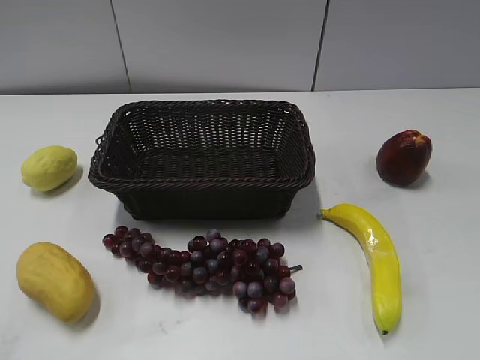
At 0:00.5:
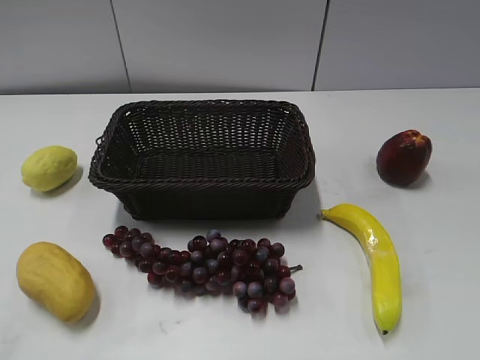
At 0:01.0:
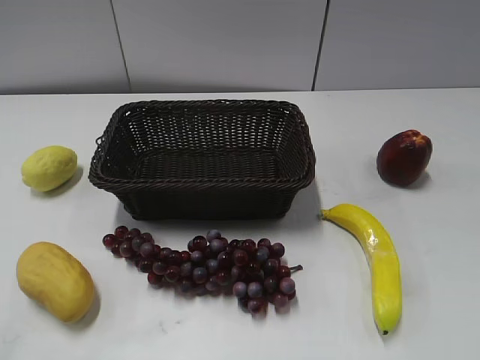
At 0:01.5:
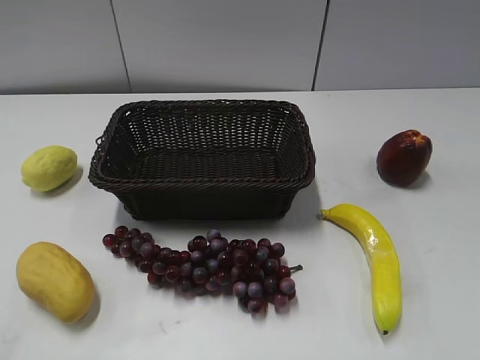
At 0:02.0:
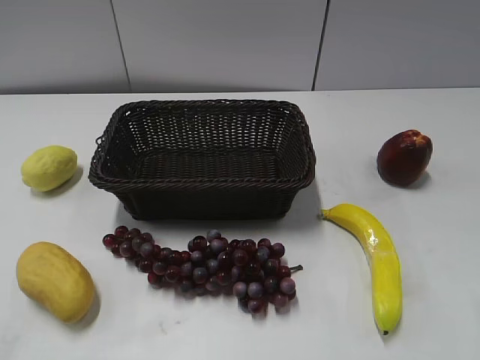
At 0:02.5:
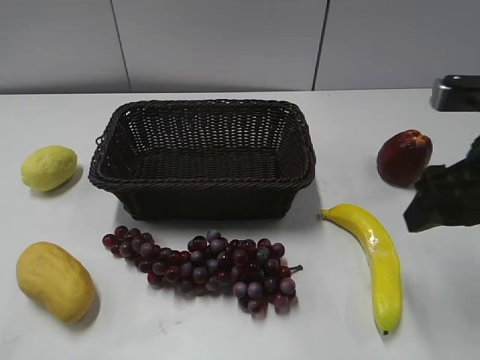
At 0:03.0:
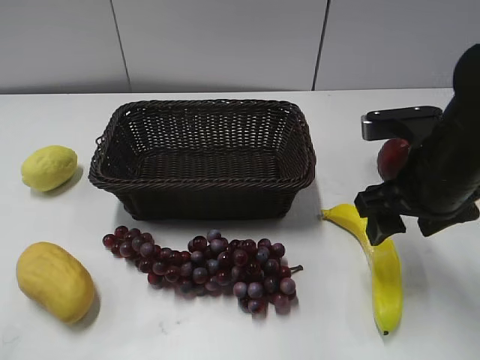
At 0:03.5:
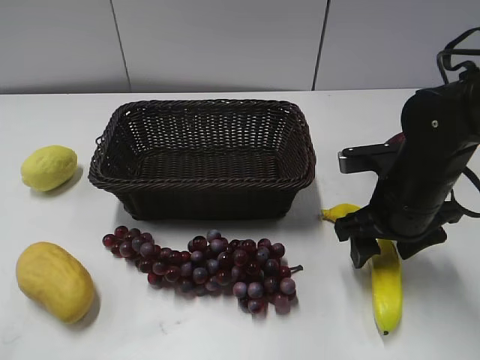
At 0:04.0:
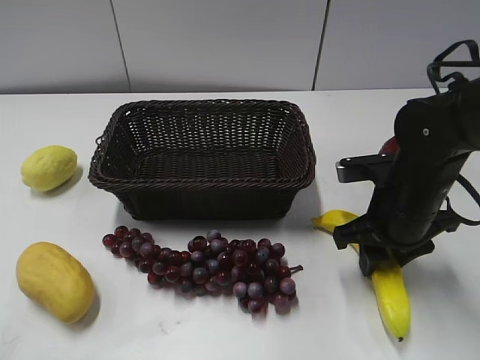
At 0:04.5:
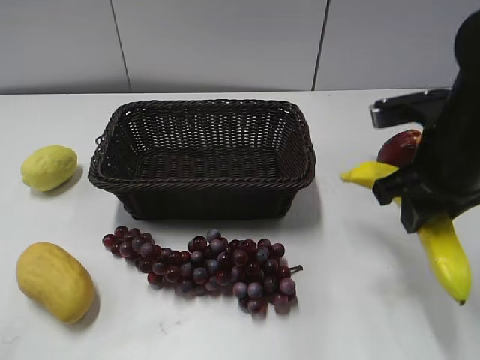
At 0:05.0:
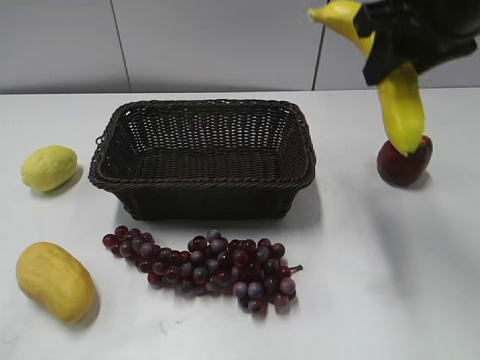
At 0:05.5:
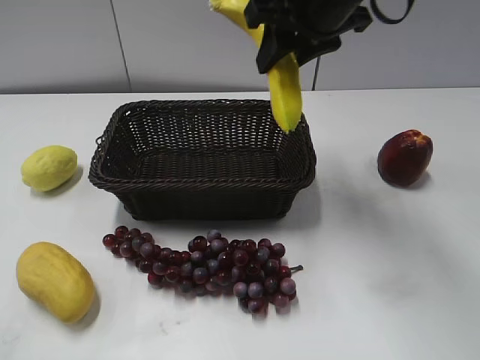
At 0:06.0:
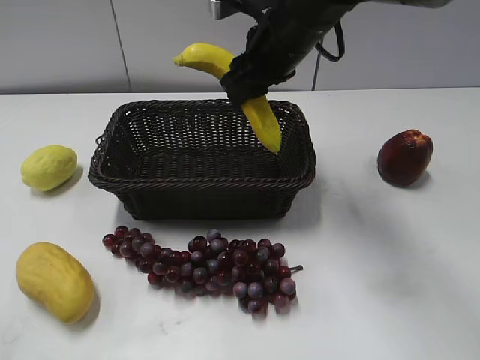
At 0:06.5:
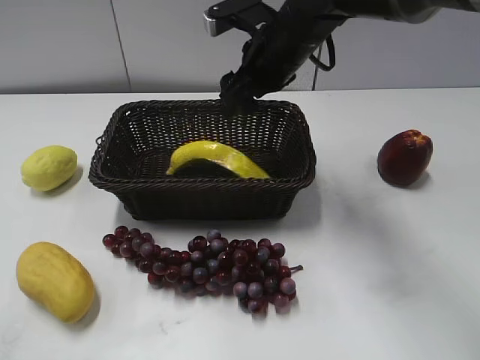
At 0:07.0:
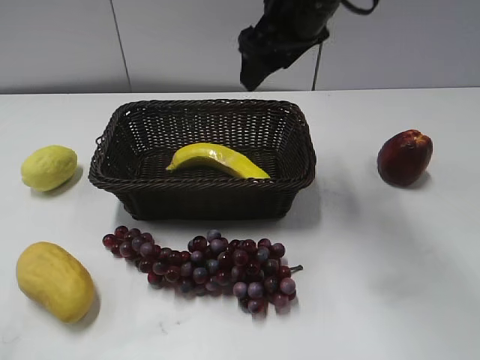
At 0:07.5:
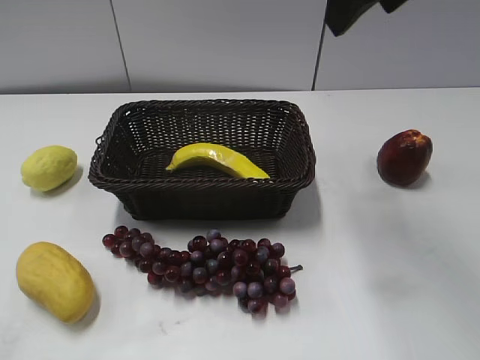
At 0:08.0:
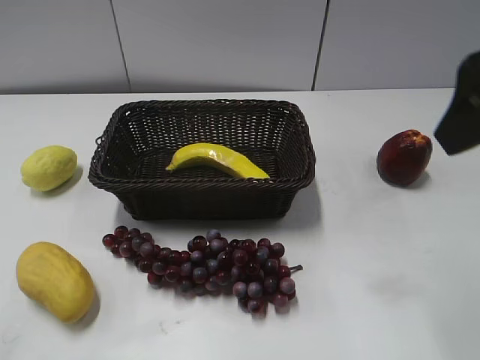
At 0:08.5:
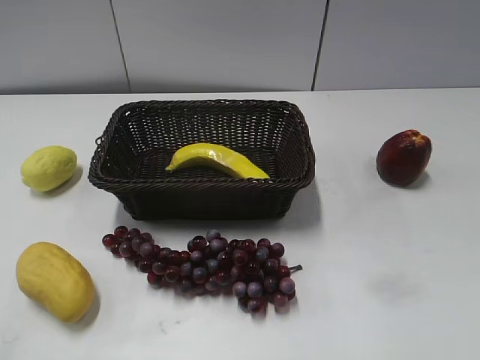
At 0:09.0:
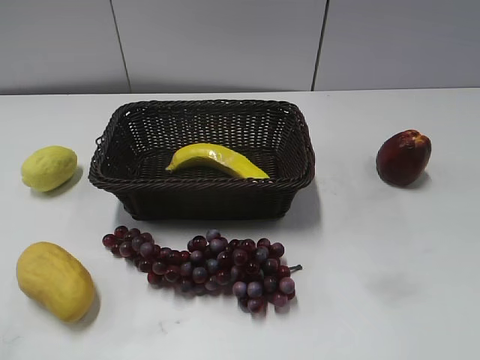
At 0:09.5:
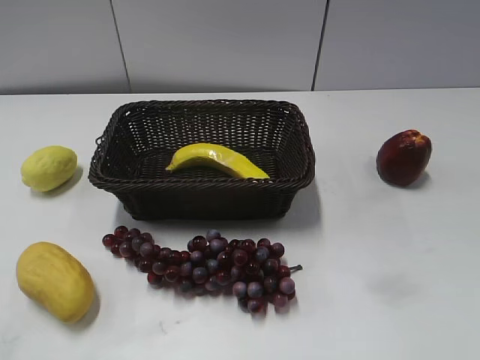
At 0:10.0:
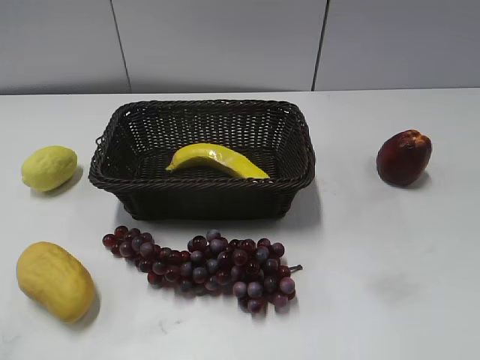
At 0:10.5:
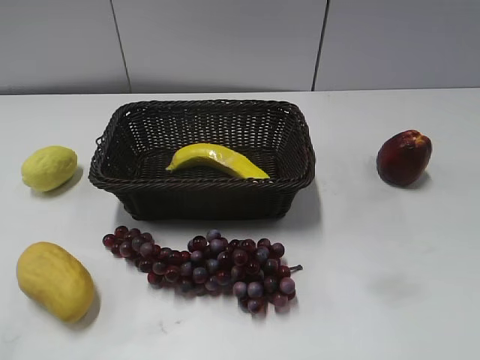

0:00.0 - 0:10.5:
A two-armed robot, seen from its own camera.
Step, 0:02.5 - 0:03.5: Grasp the banana with right gripper.
Step, 0:04.0 - 0:06.5: Place the banana in the basket with right gripper.
0:02.0 - 0:04.0: The right gripper heads downward, forward and to the left, covering some 20 cm, and closes.
0:04.0 - 0:06.5: The right gripper goes some 20 cm to the left, forward and upward, and opens.
0:06.5 - 0:08.5: The right gripper is displaced backward and to the right by approximately 40 cm.

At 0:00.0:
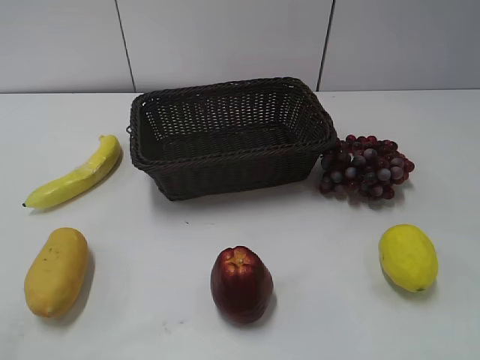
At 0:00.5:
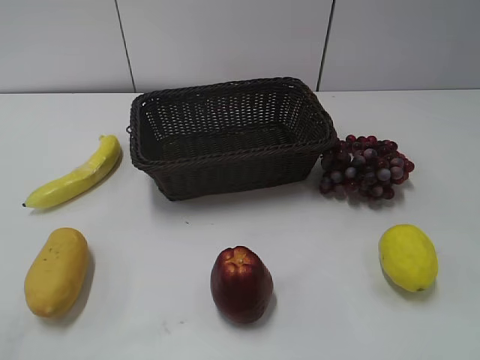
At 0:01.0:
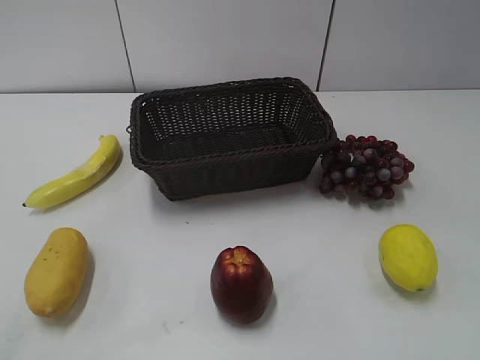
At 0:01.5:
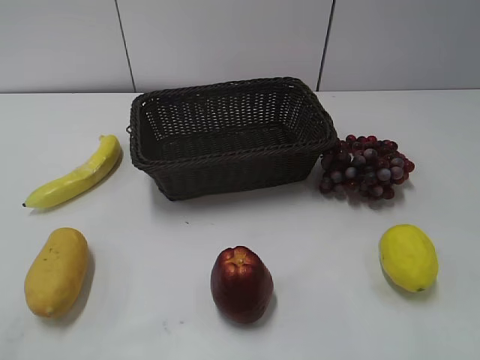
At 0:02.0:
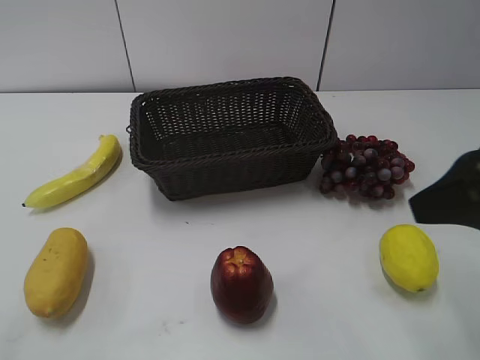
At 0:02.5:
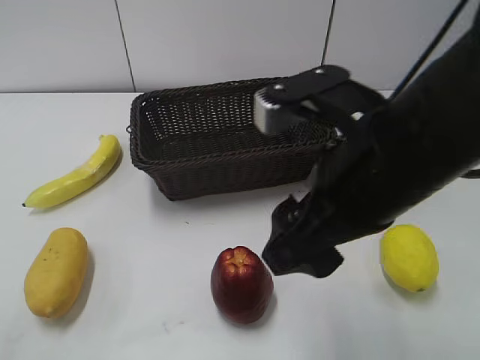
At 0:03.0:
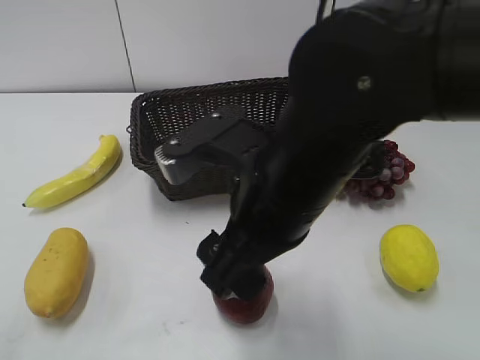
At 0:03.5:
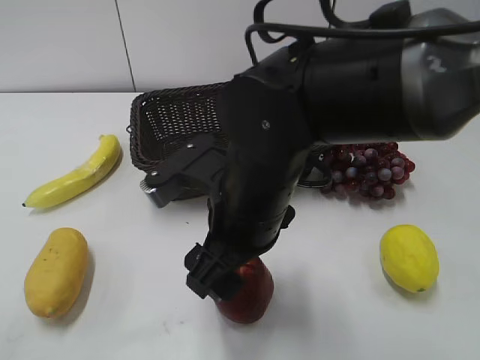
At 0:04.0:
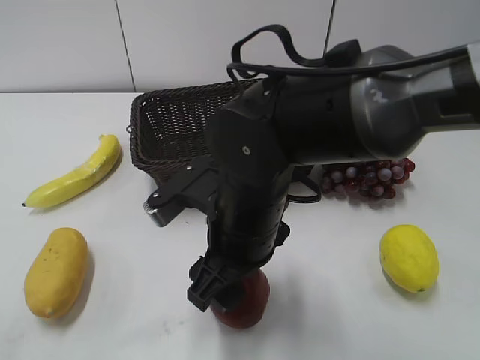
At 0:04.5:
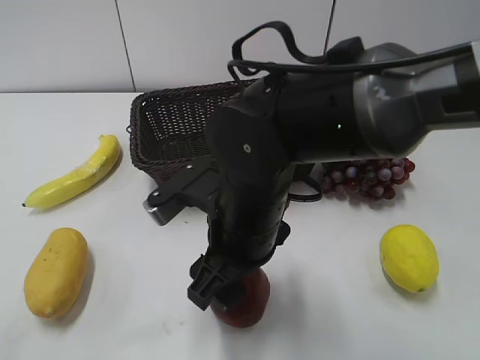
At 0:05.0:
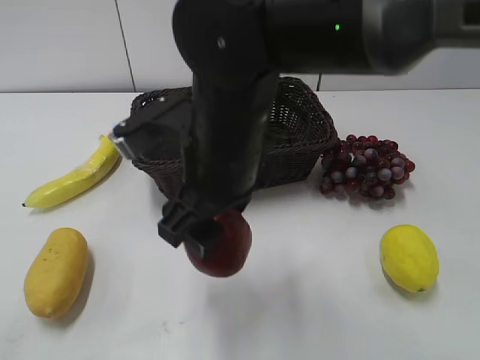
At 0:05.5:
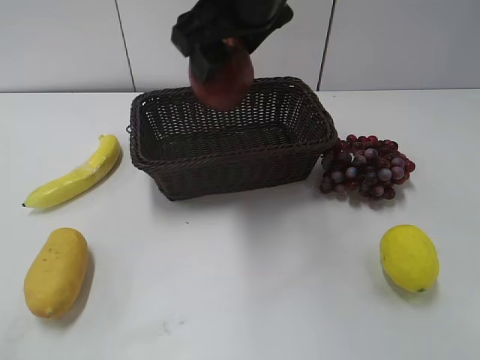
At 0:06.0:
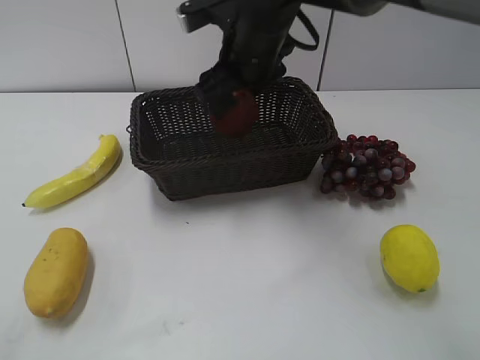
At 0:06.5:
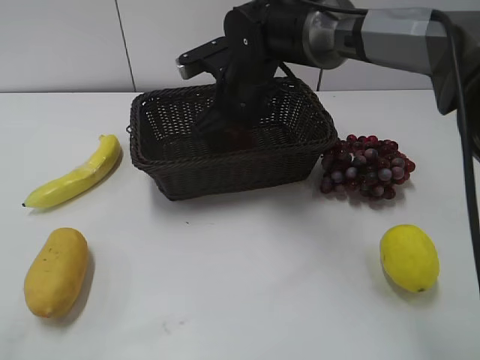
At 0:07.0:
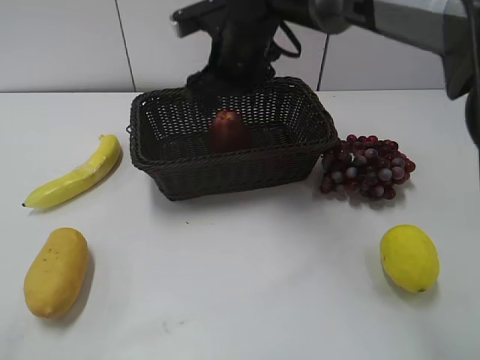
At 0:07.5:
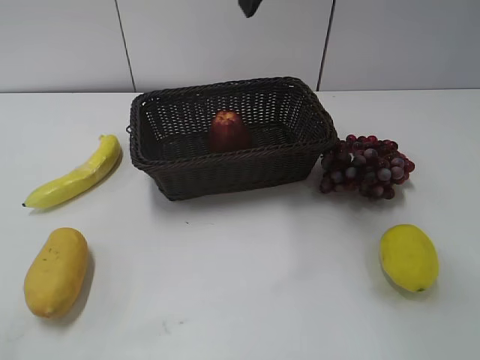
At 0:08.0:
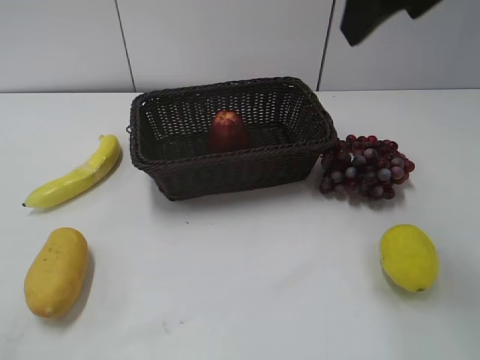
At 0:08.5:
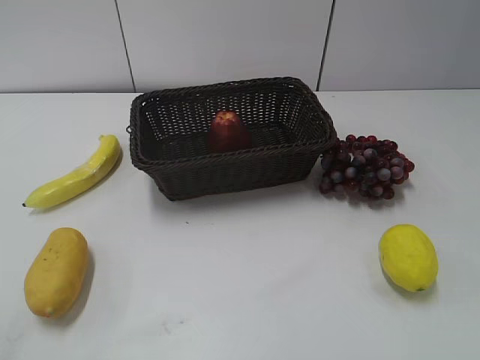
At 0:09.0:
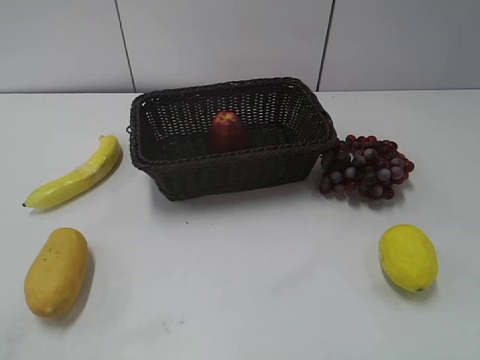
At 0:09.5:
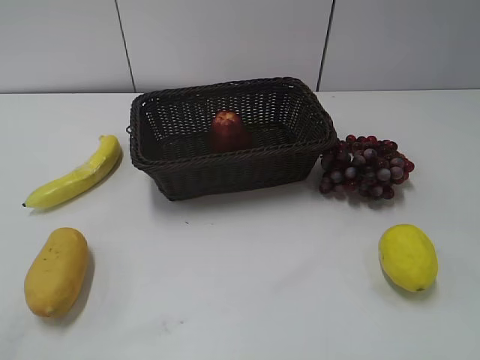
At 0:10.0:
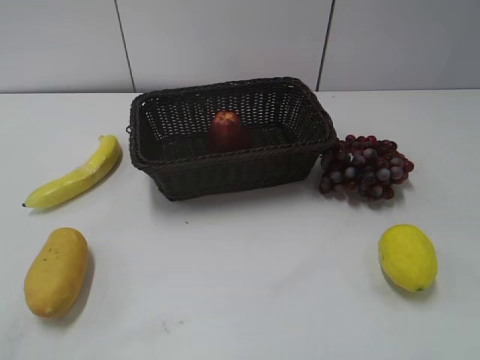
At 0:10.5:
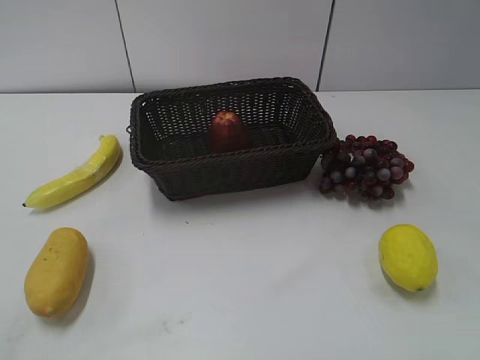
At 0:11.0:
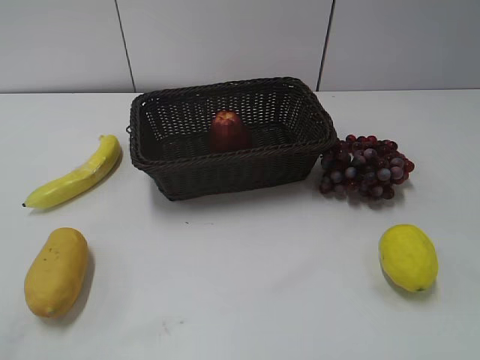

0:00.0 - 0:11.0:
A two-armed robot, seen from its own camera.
Step, 0:02.0 - 0:04.0: Grasp the apple with right gripper.
Step, 0:04.5 - 0:06.5: Place the apple in the basket with right gripper.
0:02.0 - 0:03.5: The right gripper is displaced to the left and downward by some 25 cm.
0:03.5 - 0:05.5: The right gripper is displaced upward and forward by roughly 20 cm, and closes up.
0:05.5 - 0:07.5: The right gripper reaches about 15 cm downward, then returns, and opens.
0:07.5 - 0:09.0: The right gripper is displaced backward and to the right by about 40 cm, and closes its fingers.
